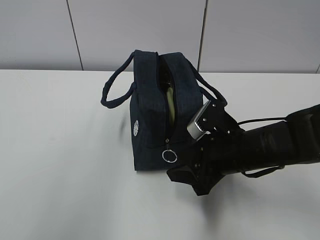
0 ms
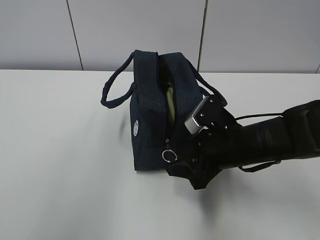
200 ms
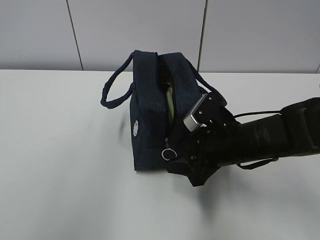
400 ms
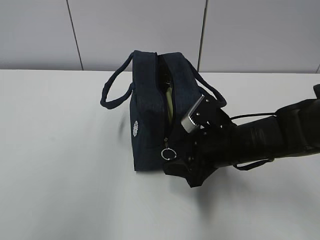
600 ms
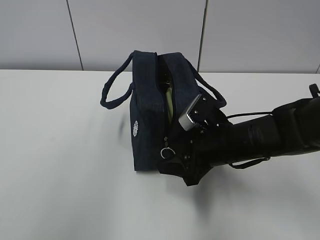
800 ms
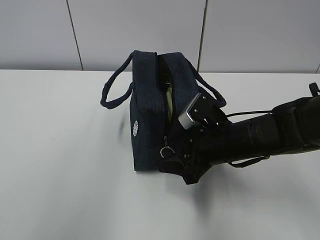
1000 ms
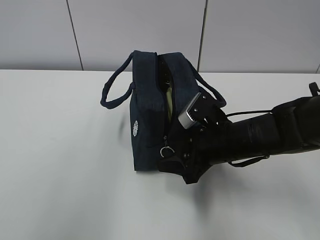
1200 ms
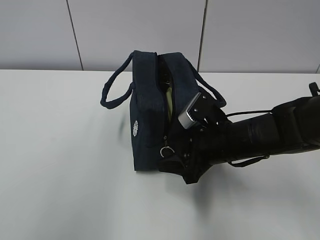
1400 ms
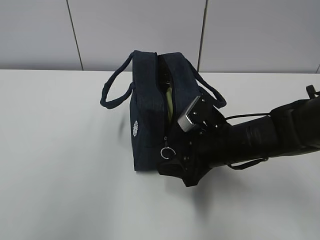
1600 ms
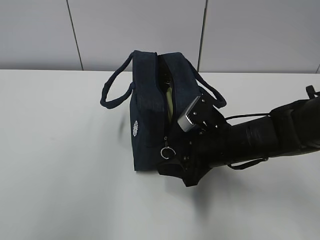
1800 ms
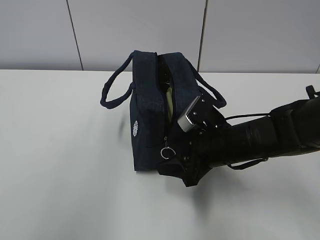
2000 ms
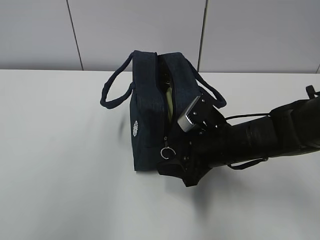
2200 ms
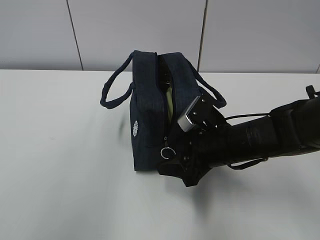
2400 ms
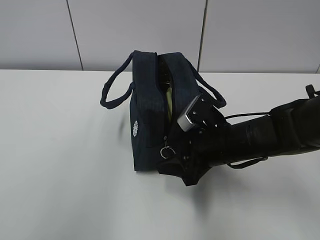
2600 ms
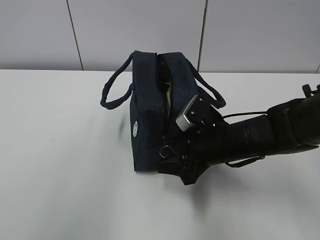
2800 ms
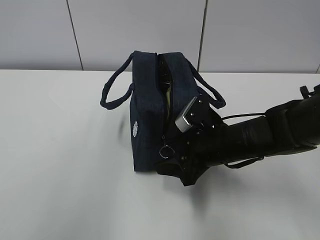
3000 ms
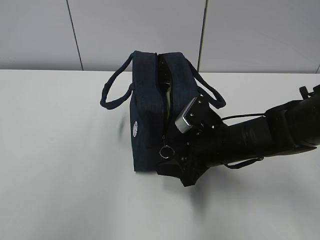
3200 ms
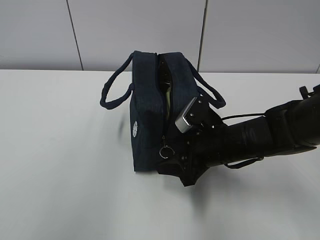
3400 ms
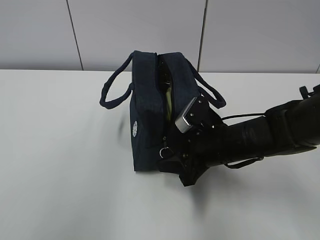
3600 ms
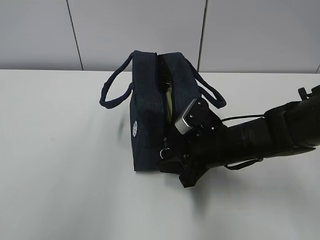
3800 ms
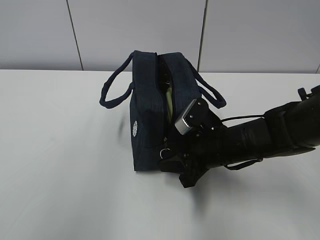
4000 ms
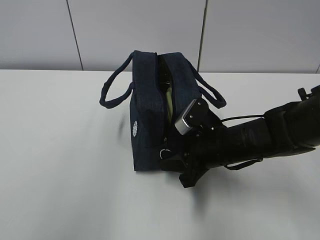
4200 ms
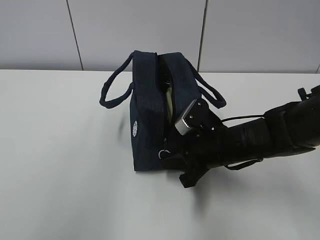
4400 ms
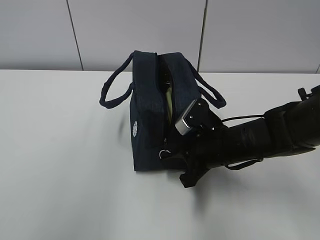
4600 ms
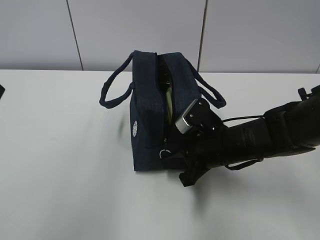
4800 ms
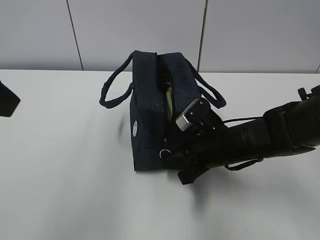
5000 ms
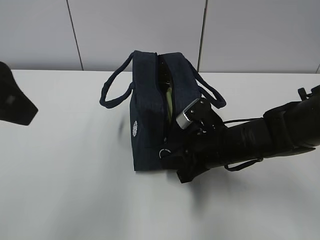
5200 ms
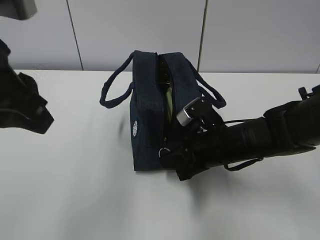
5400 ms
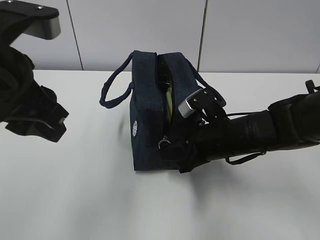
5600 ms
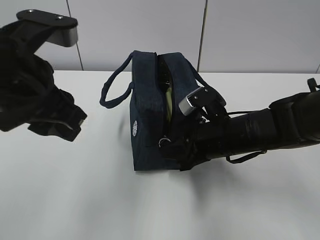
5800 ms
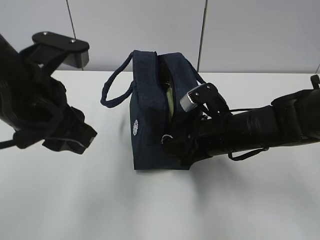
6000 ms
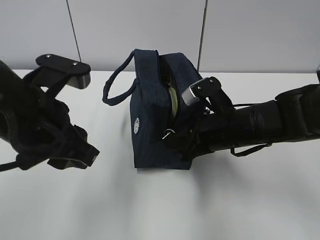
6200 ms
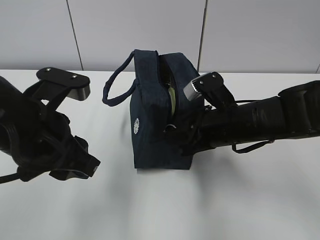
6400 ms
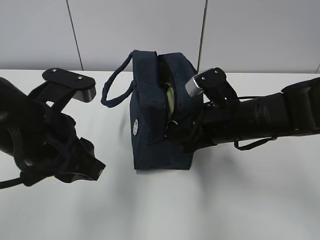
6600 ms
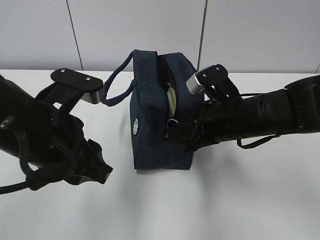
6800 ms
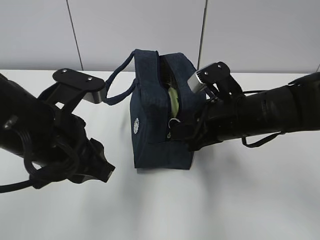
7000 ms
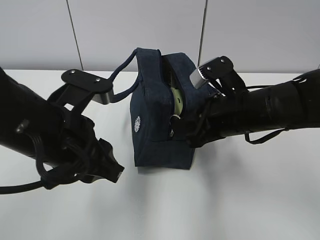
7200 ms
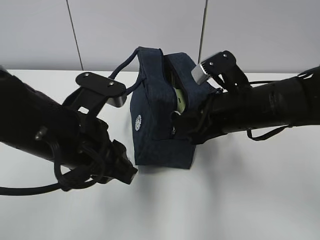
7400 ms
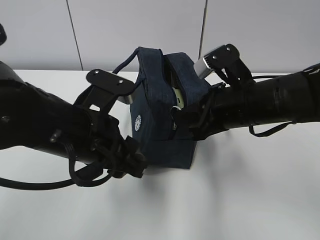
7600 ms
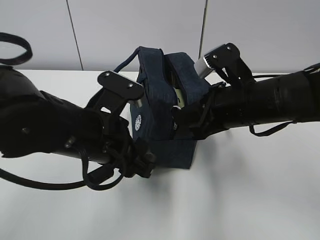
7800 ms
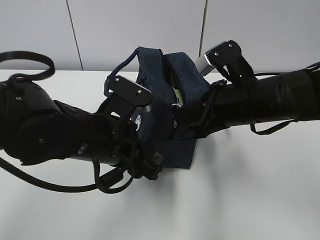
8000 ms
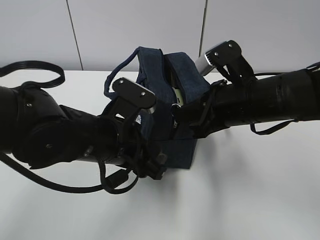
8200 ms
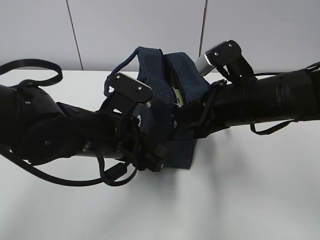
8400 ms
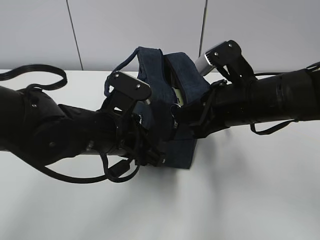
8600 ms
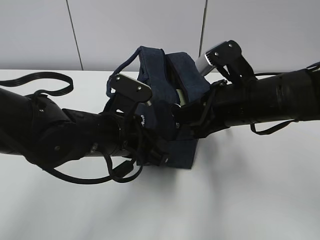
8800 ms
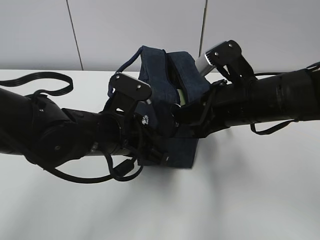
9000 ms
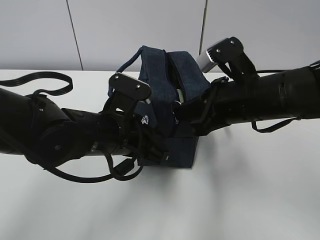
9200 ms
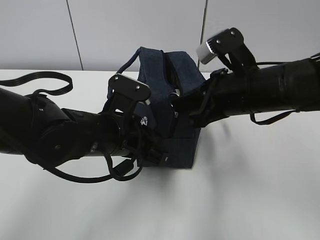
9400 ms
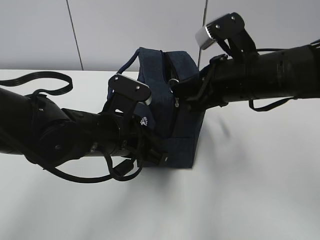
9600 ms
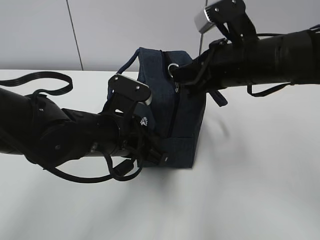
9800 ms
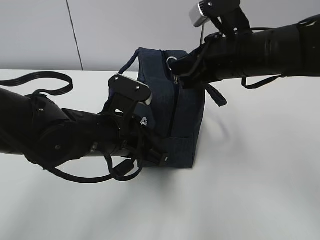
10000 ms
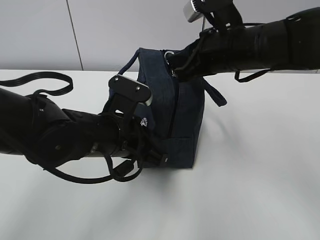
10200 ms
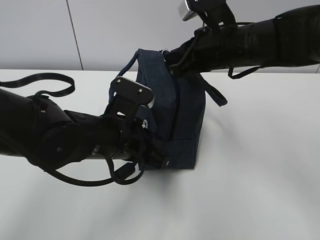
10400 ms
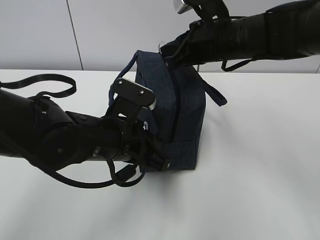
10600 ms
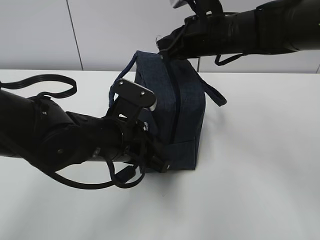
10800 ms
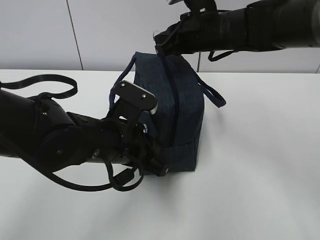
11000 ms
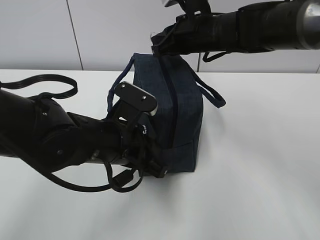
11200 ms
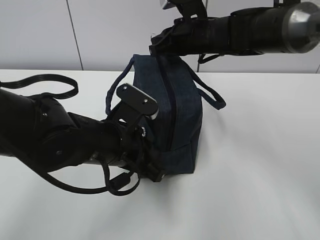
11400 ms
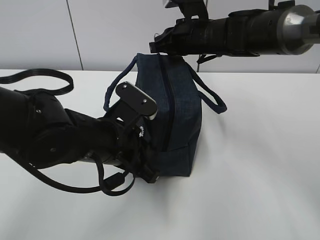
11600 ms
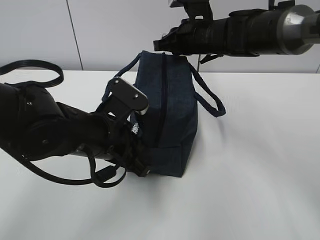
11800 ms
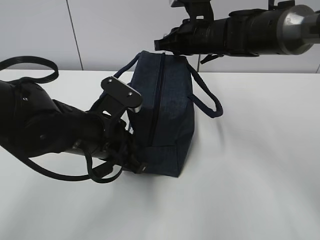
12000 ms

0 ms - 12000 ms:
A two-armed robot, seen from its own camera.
0 ms - 1600 ms: The grippers move only a little.
1600 ms - 3000 ms: Neither gripper changes place.
3000 ms - 4400 ms: The right gripper closes.
4400 ms - 6000 ms: The left gripper goes approximately 15 cm downward, forward and to the right.
6000 ms - 7600 ms: The left gripper heads downward, covering approximately 5 cm, while the right gripper goes approximately 5 cm upward.
7600 ms - 9000 ms: The left gripper moves roughly 5 cm, and closes up.
9000 ms - 10400 ms: The right gripper moves forward, approximately 5 cm.
10400 ms - 12000 ms: The right gripper heads forward, covering roughly 10 cm.

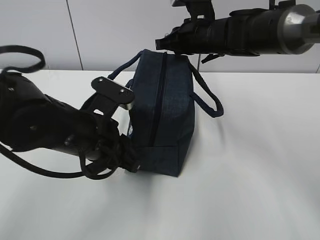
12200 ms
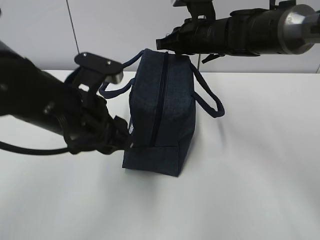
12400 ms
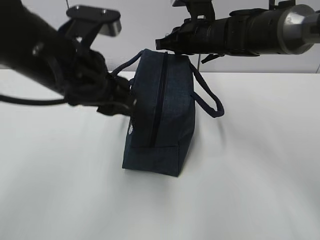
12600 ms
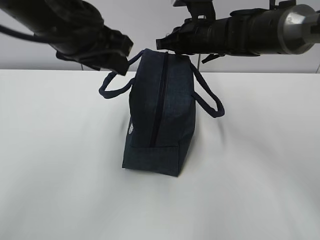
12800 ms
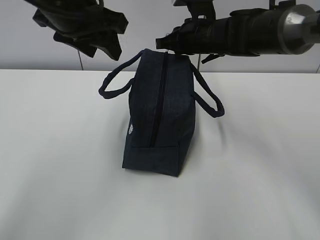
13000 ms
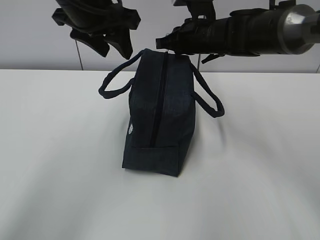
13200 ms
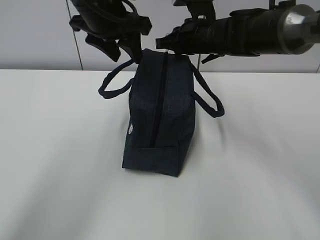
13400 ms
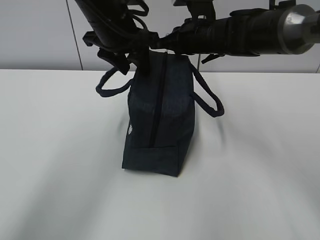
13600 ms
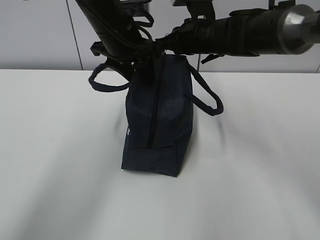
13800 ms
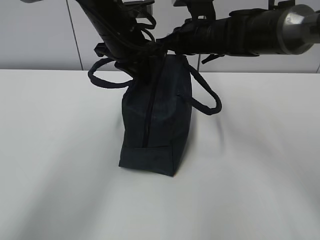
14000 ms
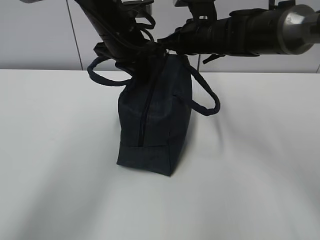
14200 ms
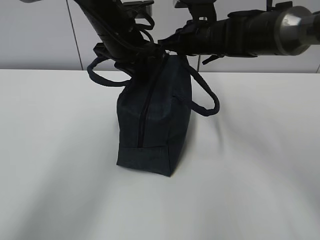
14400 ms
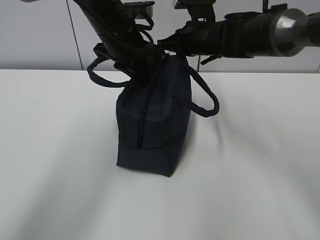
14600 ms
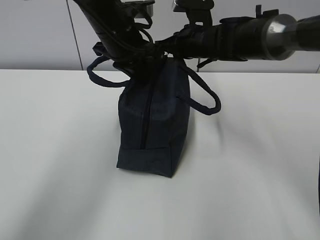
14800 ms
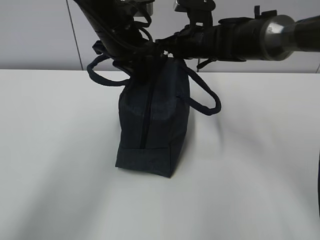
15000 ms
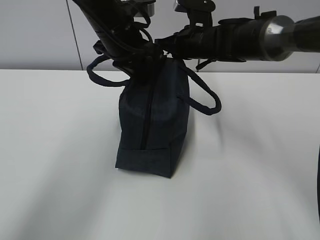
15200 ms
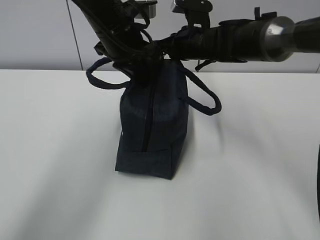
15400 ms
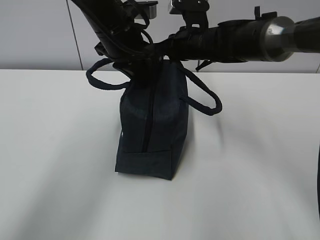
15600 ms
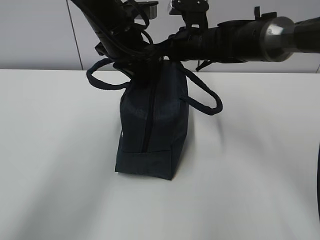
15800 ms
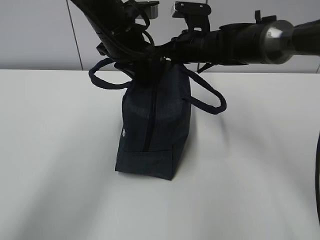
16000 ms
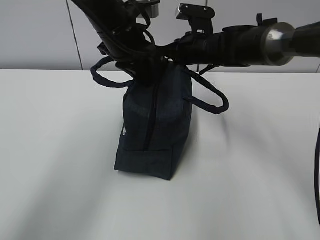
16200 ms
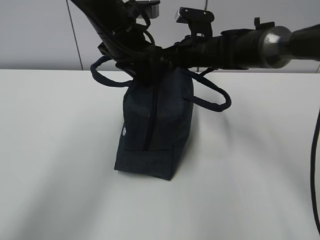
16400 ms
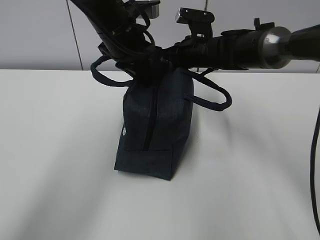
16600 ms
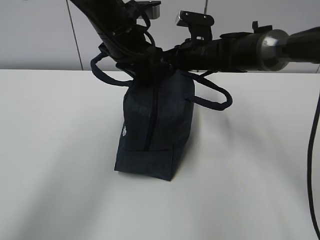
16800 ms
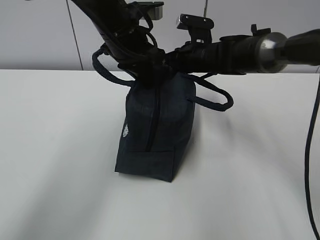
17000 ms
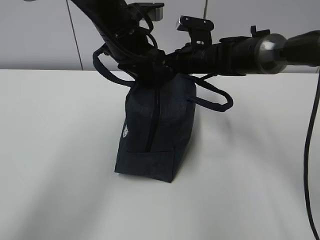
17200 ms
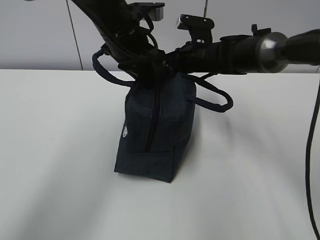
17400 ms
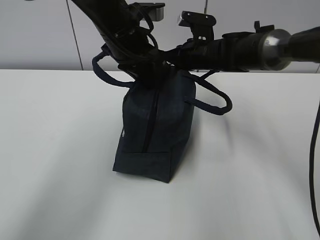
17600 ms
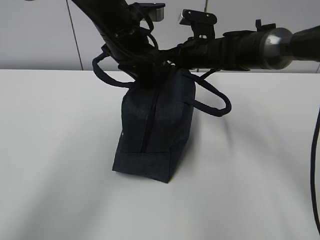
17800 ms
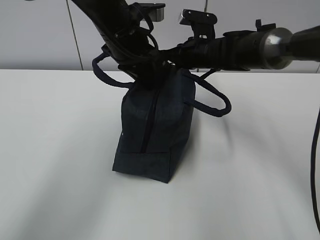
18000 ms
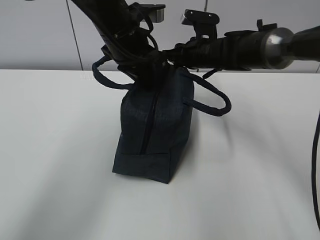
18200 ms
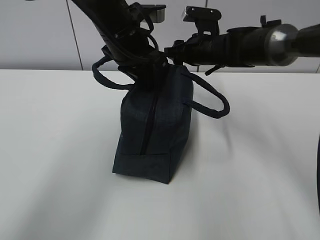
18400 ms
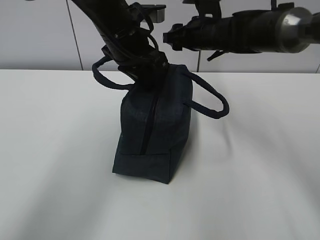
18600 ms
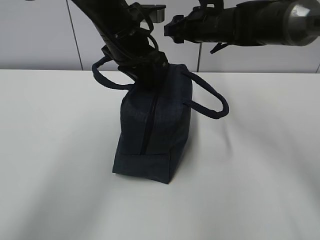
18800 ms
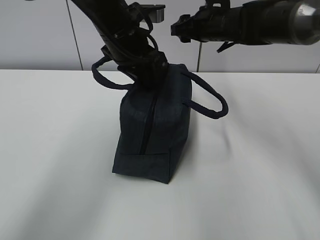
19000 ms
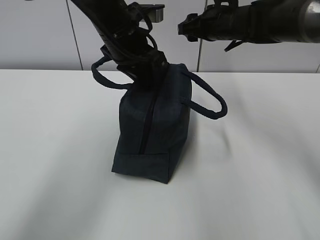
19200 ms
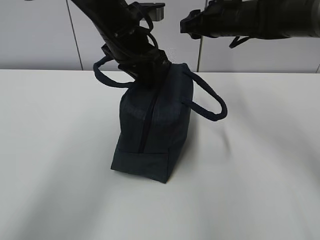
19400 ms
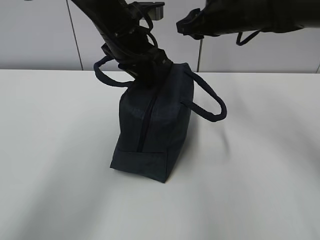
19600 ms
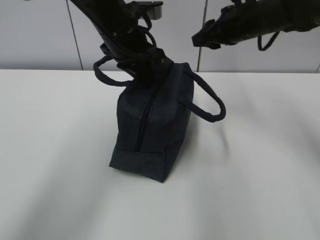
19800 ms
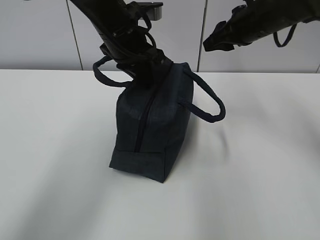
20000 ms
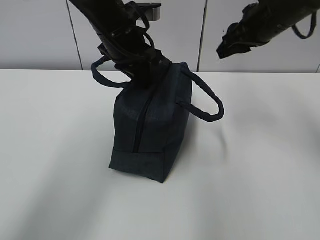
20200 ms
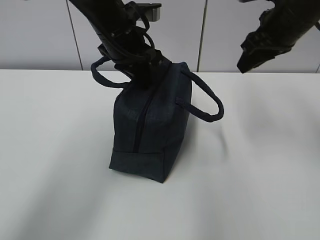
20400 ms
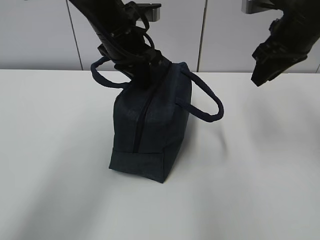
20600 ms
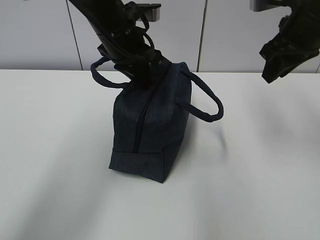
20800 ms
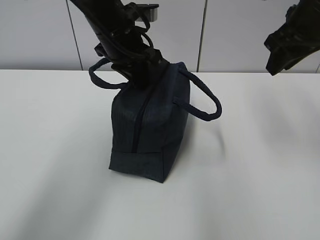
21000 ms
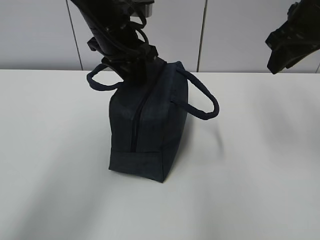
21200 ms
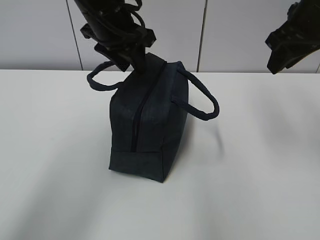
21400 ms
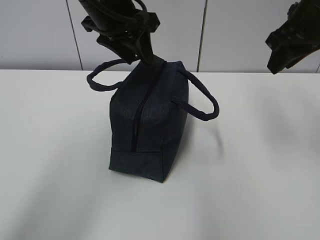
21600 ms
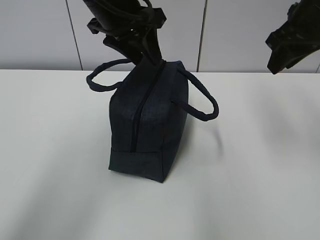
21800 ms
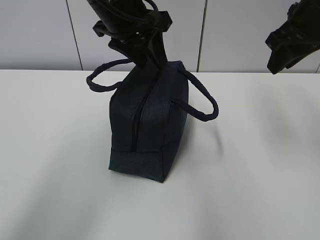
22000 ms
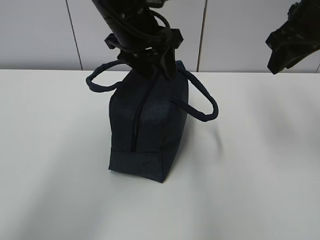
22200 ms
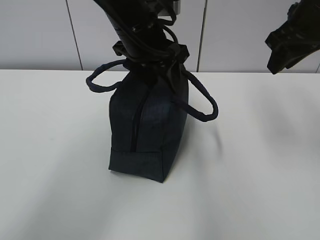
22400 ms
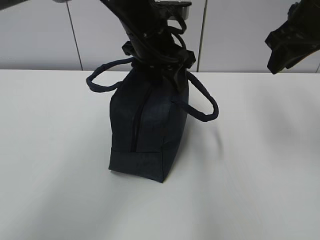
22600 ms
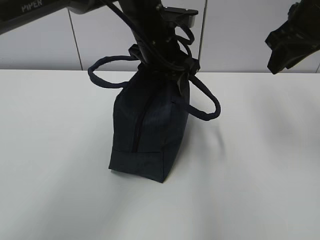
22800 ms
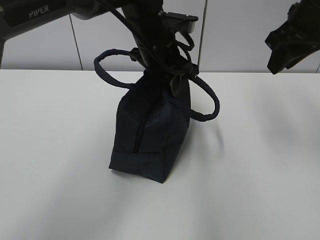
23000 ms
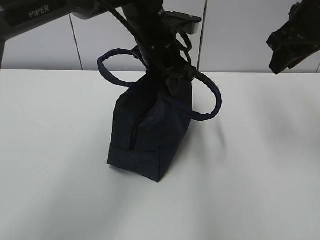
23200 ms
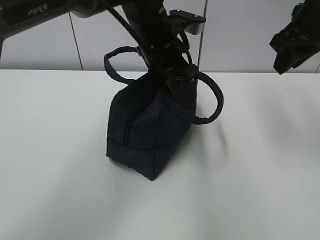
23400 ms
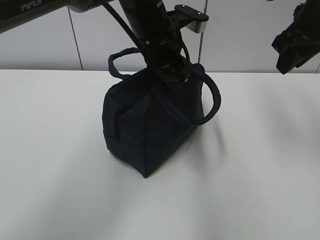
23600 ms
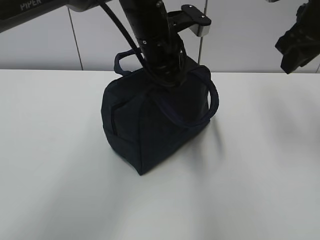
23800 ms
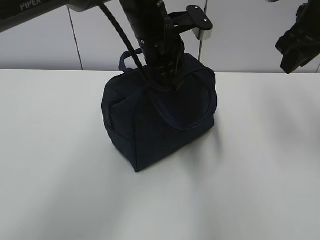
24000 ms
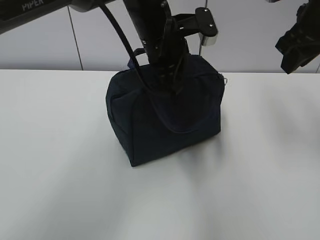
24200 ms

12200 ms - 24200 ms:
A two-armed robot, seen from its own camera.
12200 ms - 13800 ms: The left gripper heads forward and upward, covering some 20 cm, and opens its fingers.
13800 ms - 15200 ms: The left gripper closes up.
15200 ms - 16600 ms: The grippers move only a little.
16600 ms - 18200 ms: The right gripper opens.
18200 ms - 19800 ms: The right gripper shifts about 10 cm upward and to the right.
19800 ms - 21200 ms: The right gripper shifts some 15 cm backward, upward and to the right, while the left gripper opens up.
21200 ms - 22600 ms: The left gripper moves to the right, approximately 5 cm, and opens.
22600 ms - 24200 ms: The left gripper closes its fingers.
